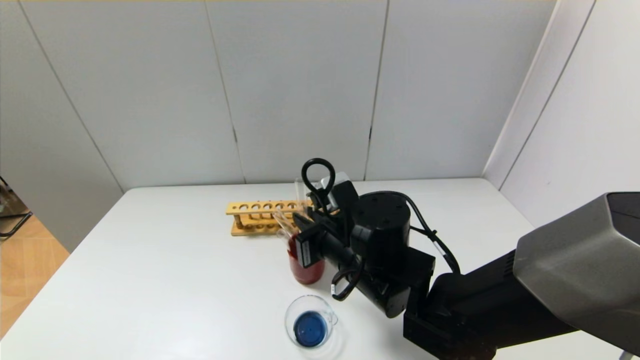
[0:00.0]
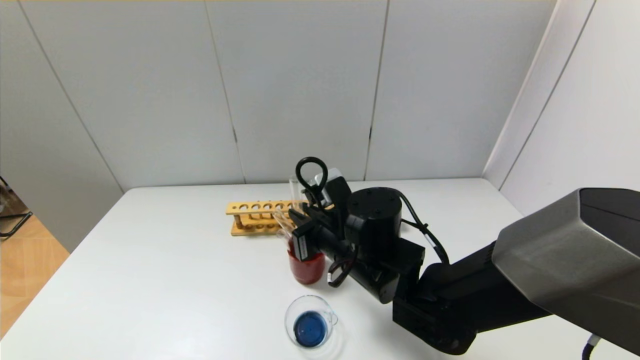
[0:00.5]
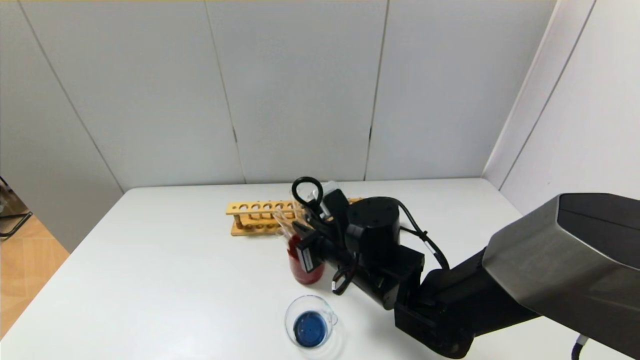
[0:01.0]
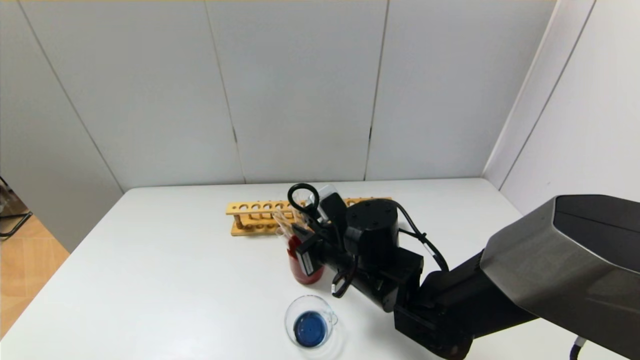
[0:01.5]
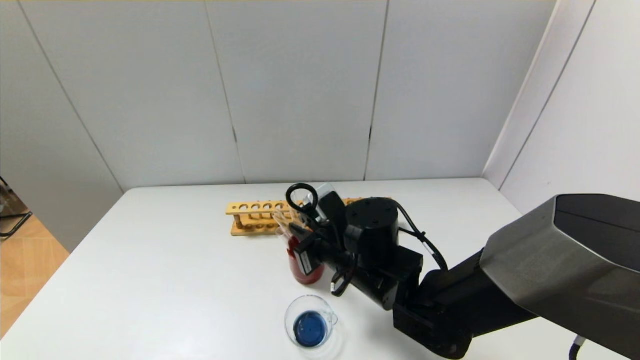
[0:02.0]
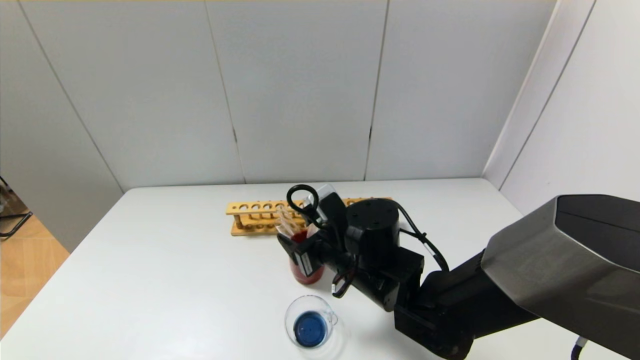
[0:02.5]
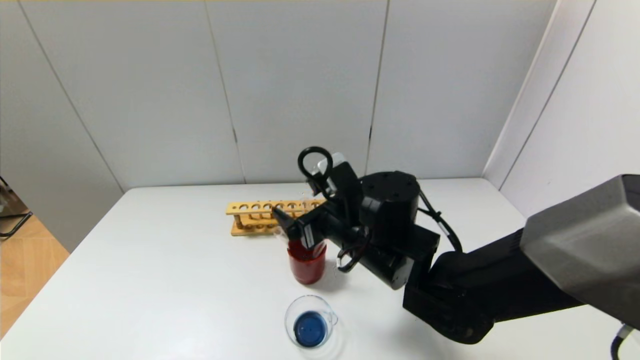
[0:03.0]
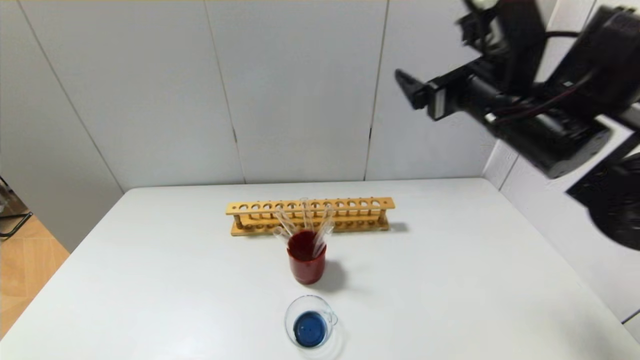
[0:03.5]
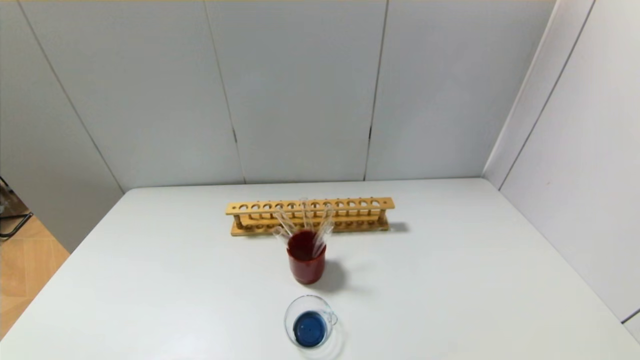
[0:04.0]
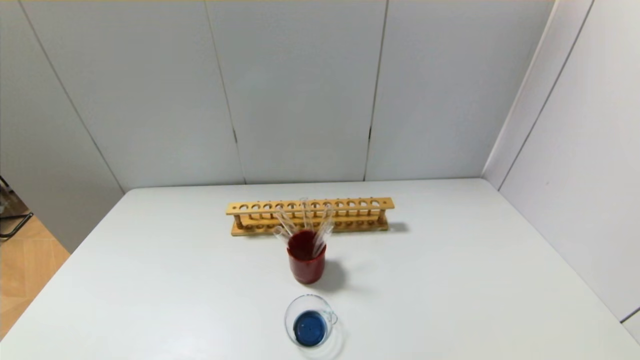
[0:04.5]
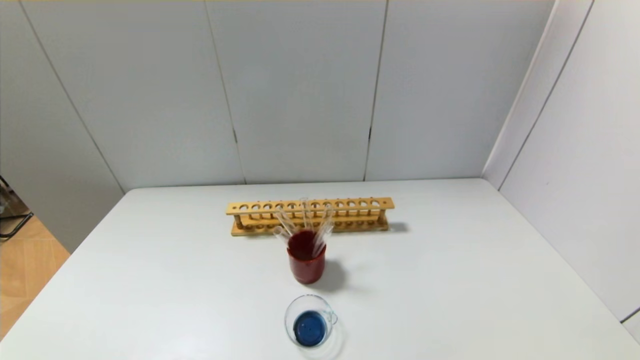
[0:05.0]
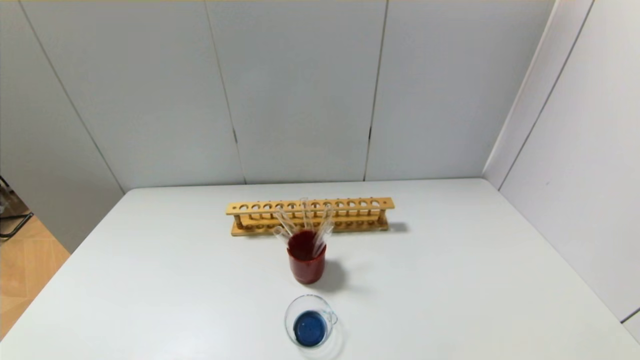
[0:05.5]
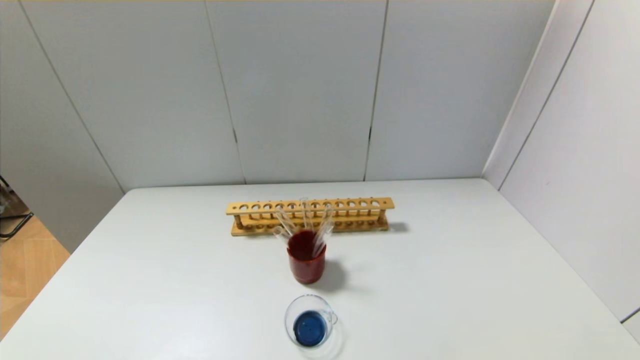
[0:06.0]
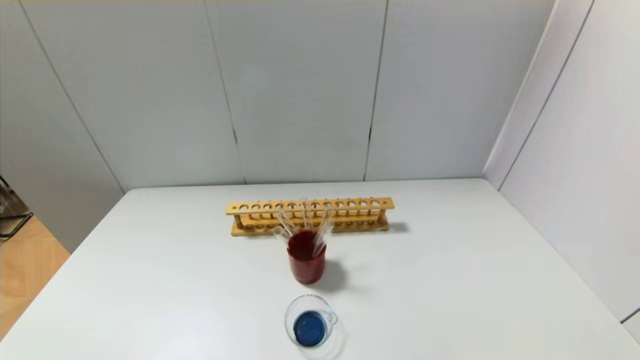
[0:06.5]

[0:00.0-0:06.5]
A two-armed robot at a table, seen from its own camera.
Step, 0.0 to 2.0 s: Place the test tube into the brown cup with the right gripper.
0.0 to 2.0 s: There are only small adjustments of the grippers.
2.0 to 4.5 s: The right gripper is displaced backward, to the right and upward by some 50 cm, and opens.

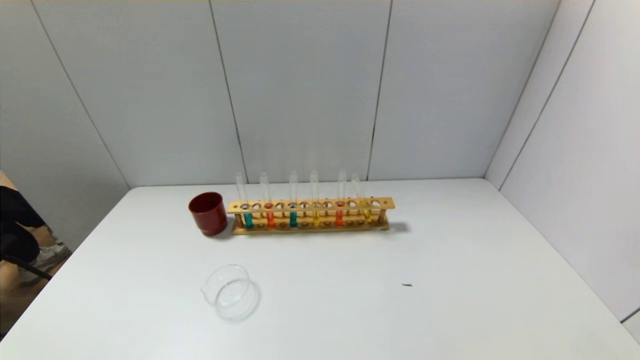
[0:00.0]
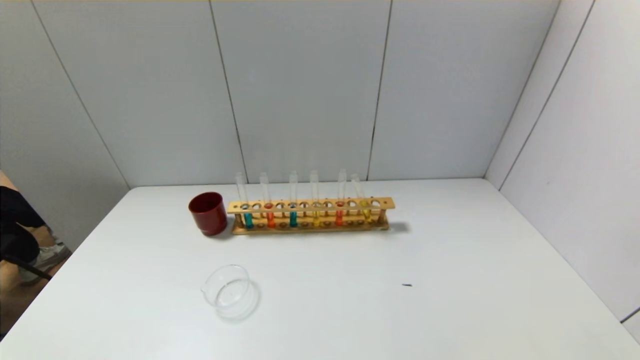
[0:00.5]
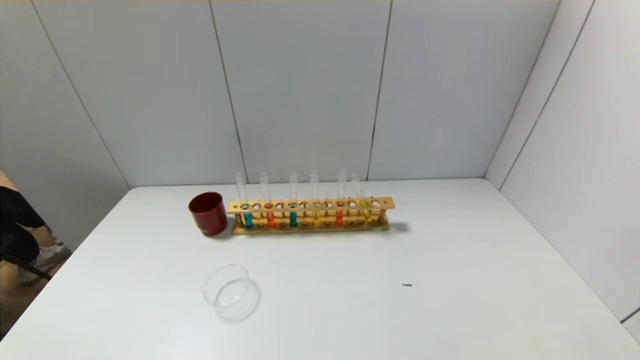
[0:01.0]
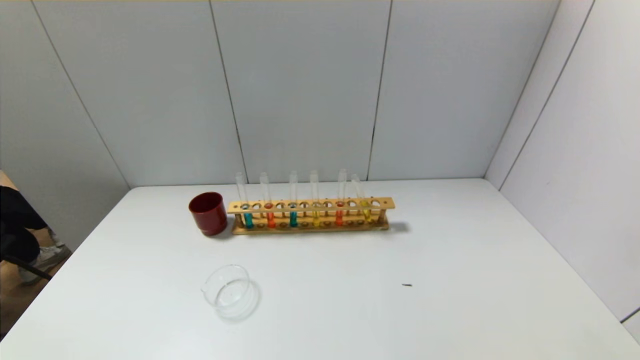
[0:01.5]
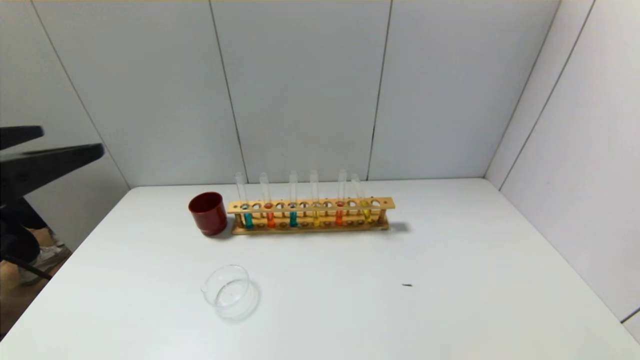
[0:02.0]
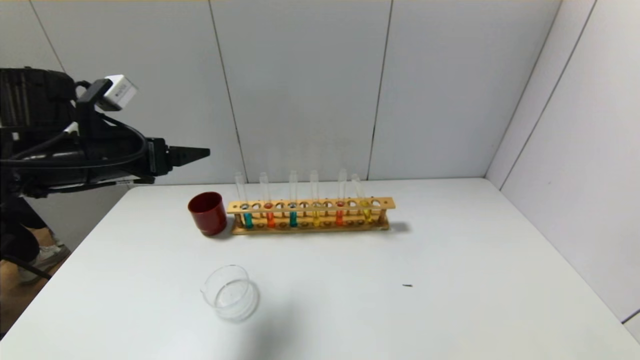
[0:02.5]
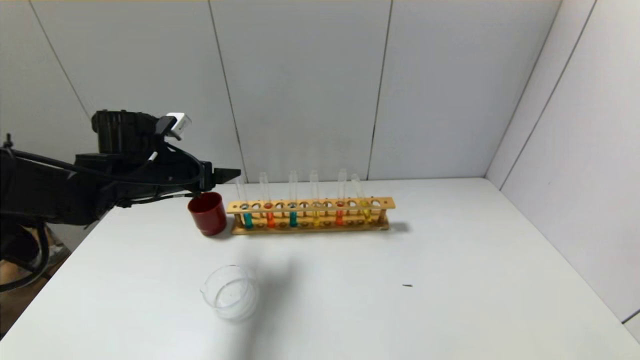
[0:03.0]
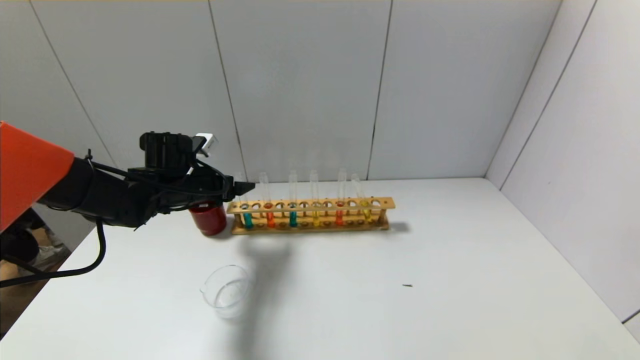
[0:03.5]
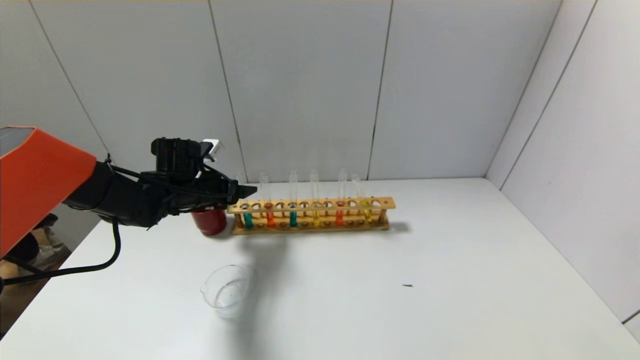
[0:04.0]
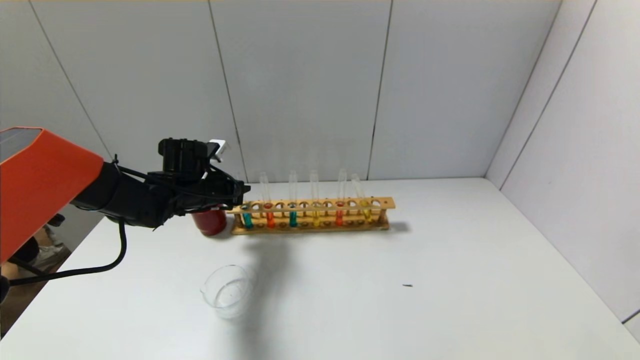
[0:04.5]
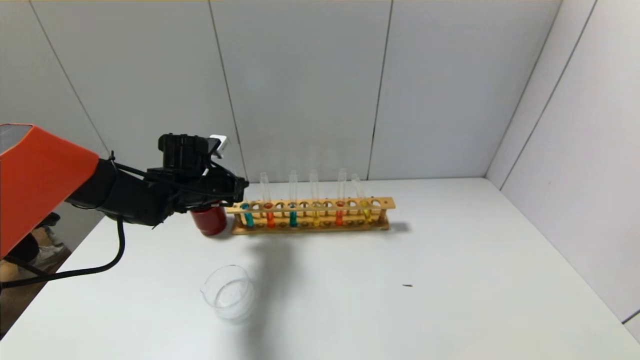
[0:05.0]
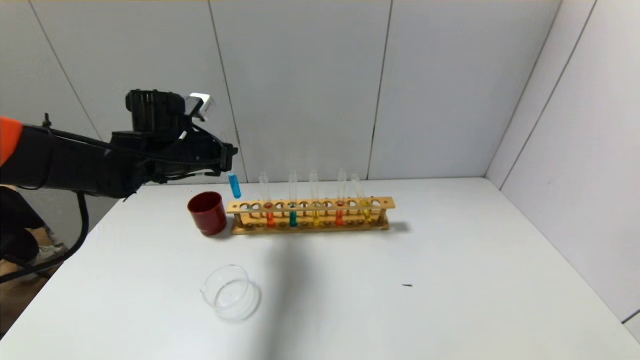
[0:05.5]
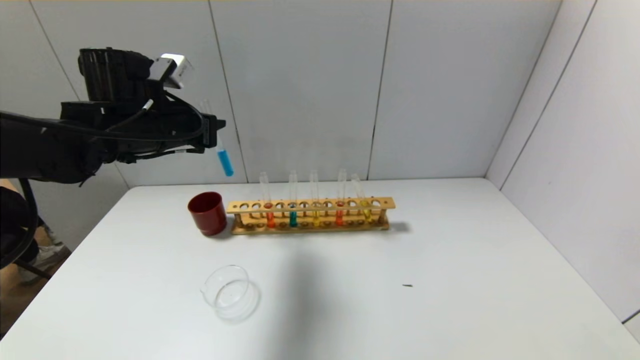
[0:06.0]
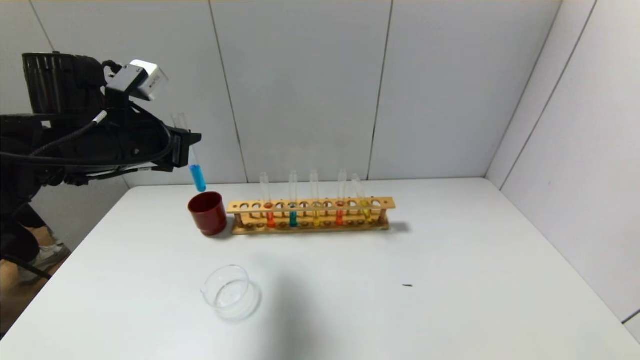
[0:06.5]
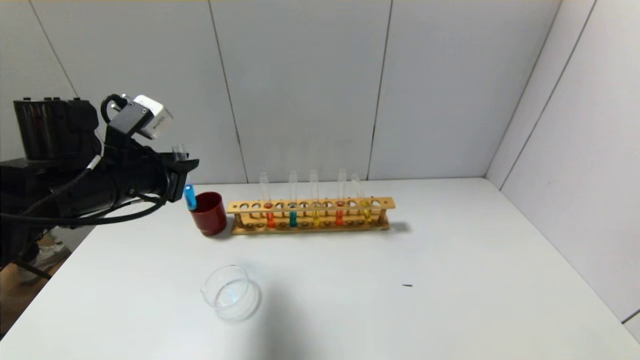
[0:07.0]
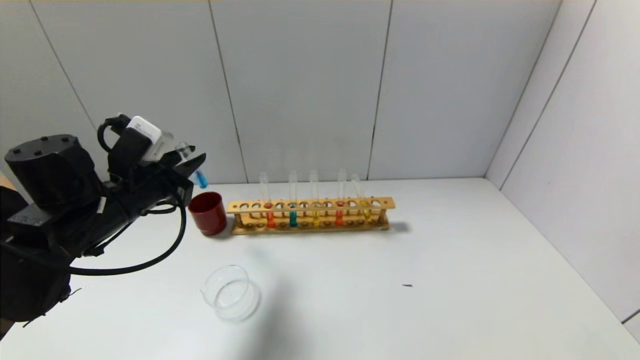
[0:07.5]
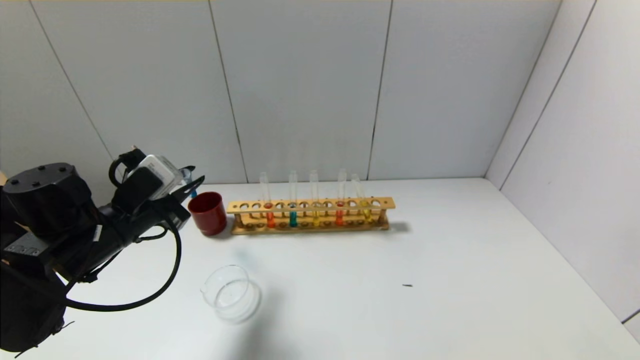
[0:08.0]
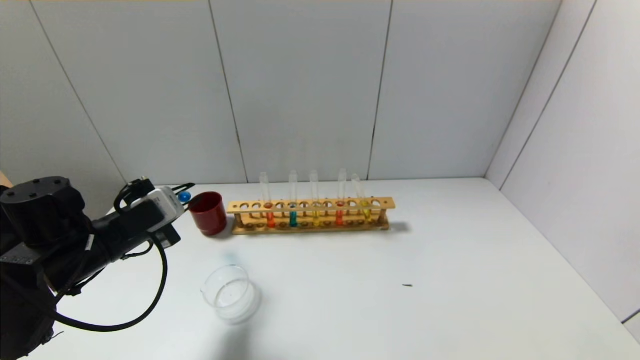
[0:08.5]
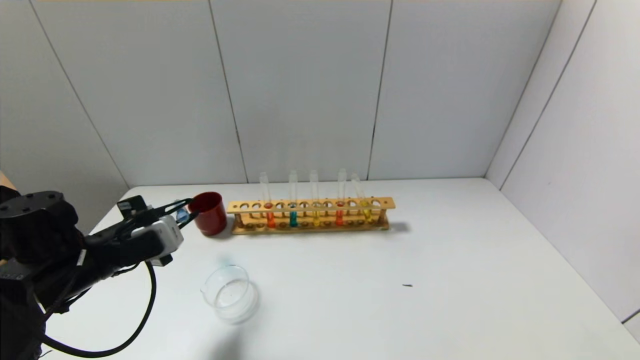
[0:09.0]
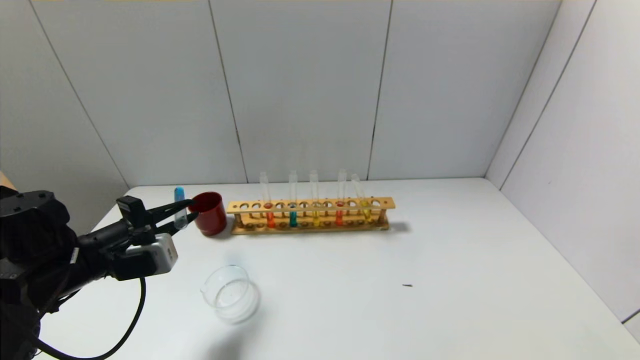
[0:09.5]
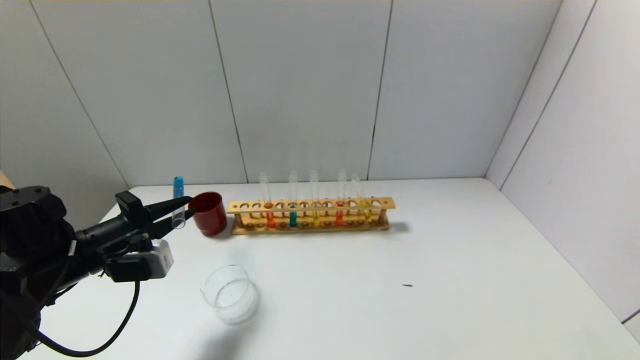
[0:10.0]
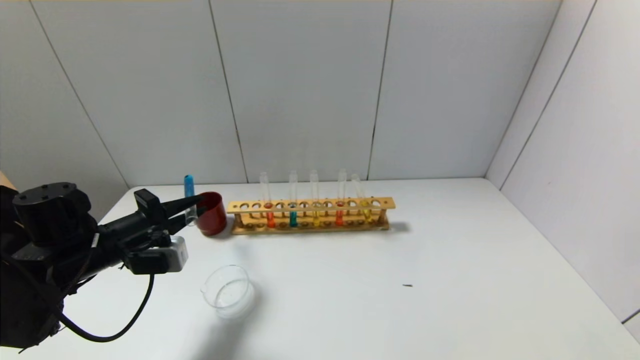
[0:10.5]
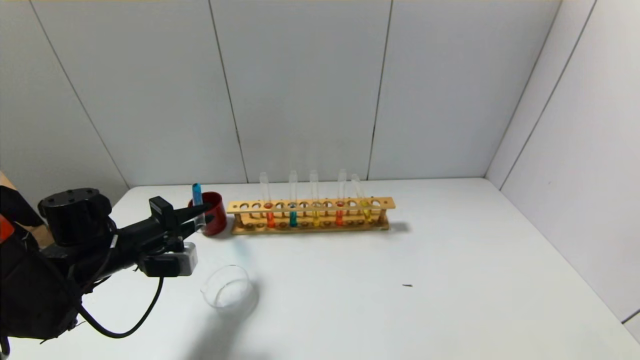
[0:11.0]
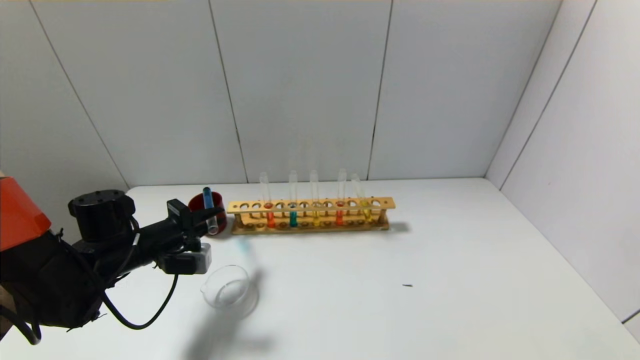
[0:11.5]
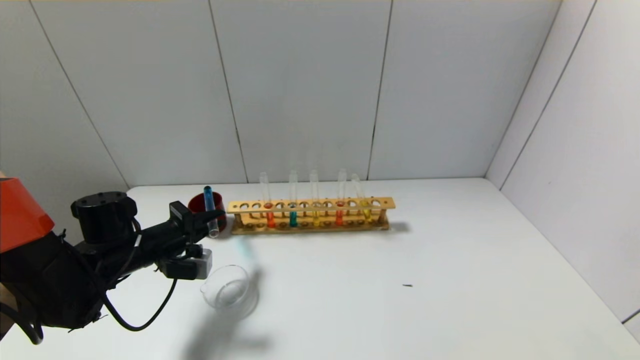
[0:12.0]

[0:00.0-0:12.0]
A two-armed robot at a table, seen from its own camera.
Step, 0.0 to 4.5 s: Grasp the blue reagent with the left gripper.
0.0 to 2.0 s: The left gripper shifts about 25 cm upward and forward.
2.0 to 4.0 s: The left gripper moves forward and downward, about 35 cm.
4.0 to 6.0 s: The left gripper shifts roughly 15 cm upward and backward, and closes.
6.0 to 8.0 s: The left gripper is displaced downward and backward by approximately 15 cm.
10.0 to 12.0 s: The left gripper moves forward and downward, about 10 cm.

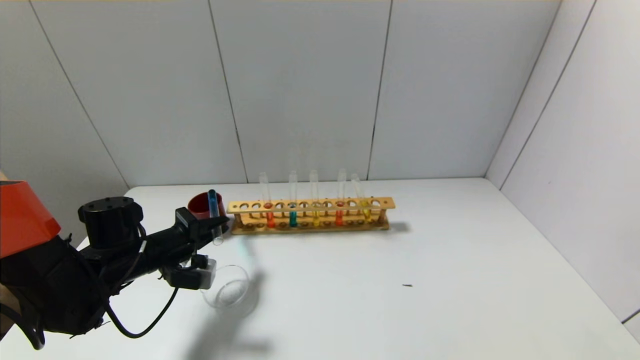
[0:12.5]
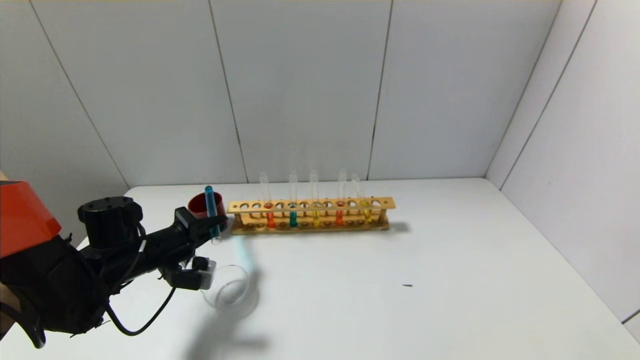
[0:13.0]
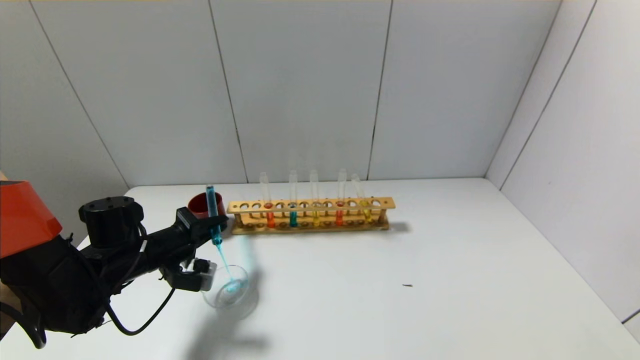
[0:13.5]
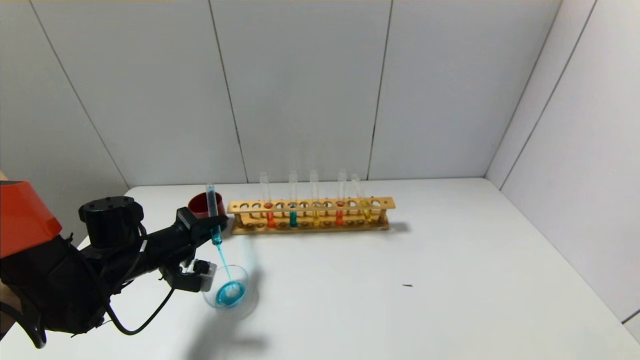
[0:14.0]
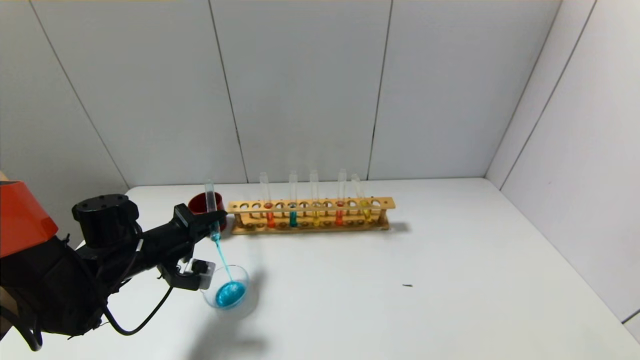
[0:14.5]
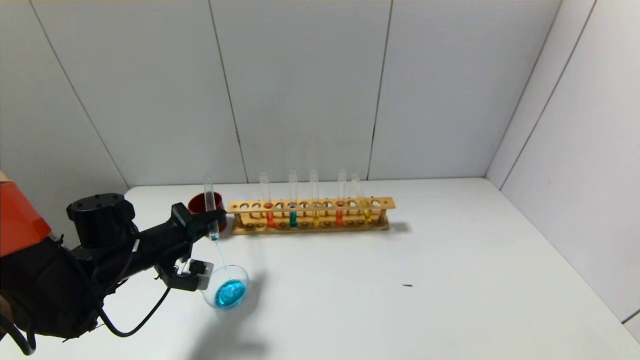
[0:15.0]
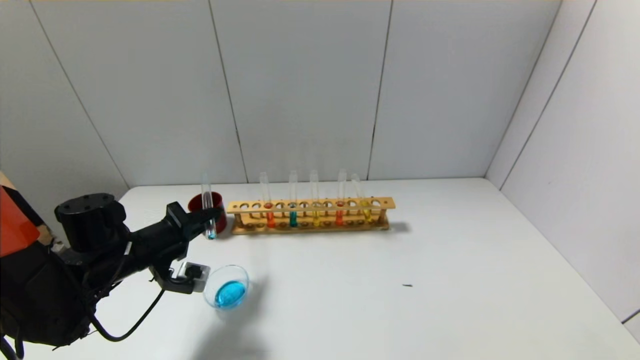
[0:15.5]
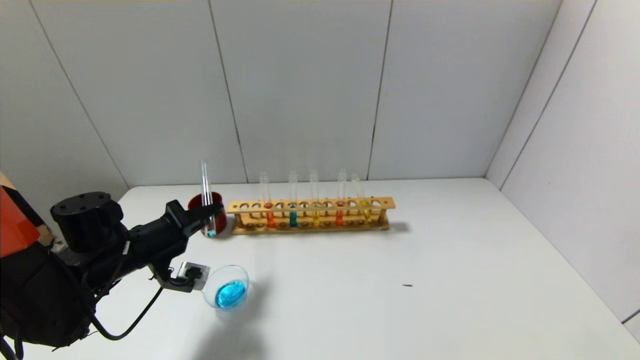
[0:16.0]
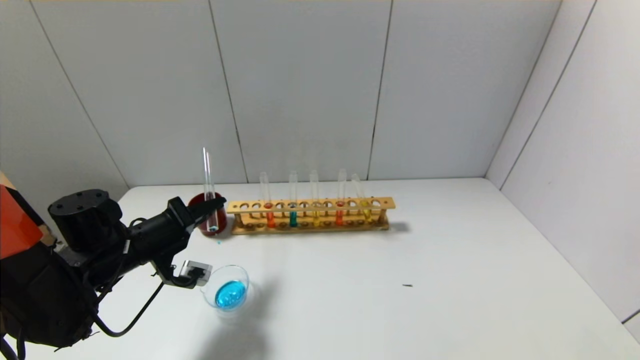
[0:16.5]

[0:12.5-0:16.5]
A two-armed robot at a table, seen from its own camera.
12.5 to 14.5 s: There are only small adjustments of the grippers.
14.5 to 16.5 s: The grippers make only small movements.
